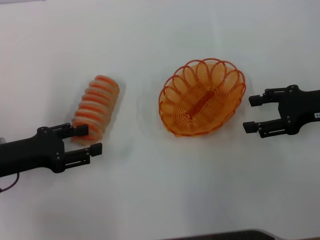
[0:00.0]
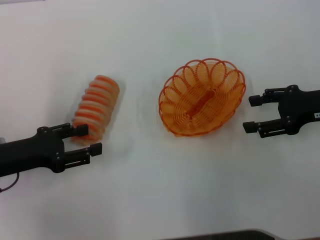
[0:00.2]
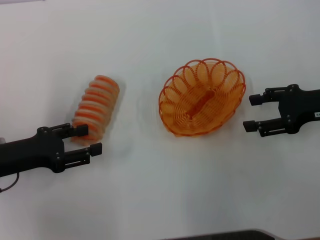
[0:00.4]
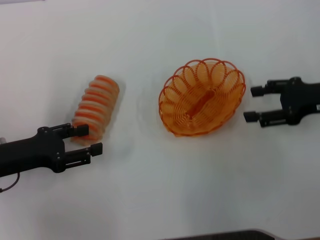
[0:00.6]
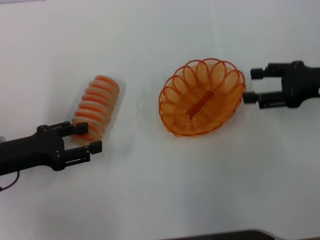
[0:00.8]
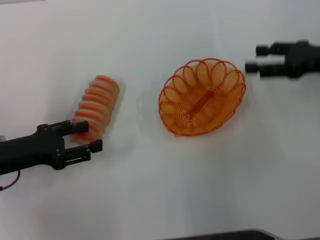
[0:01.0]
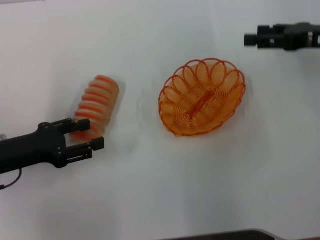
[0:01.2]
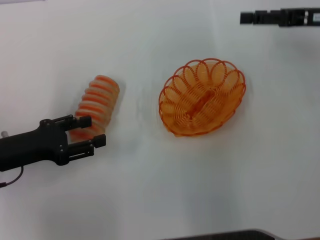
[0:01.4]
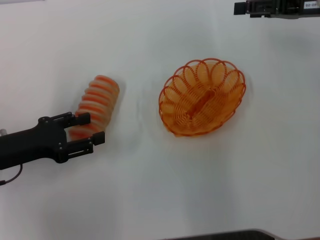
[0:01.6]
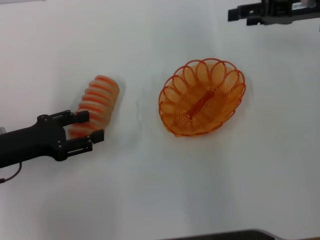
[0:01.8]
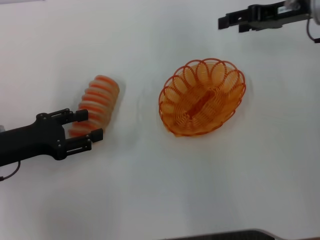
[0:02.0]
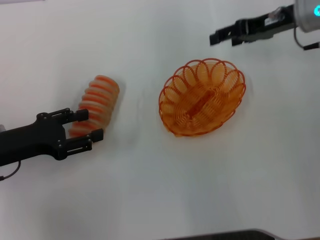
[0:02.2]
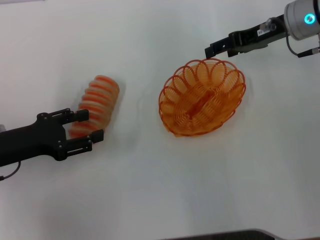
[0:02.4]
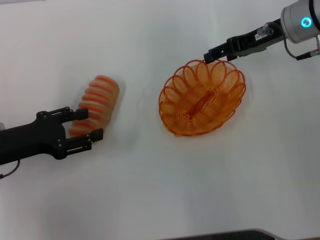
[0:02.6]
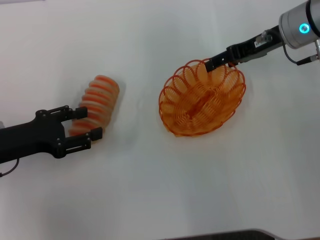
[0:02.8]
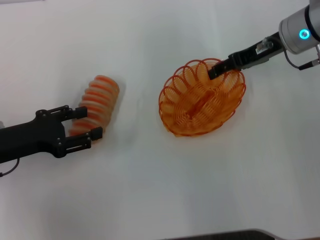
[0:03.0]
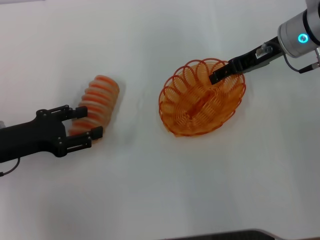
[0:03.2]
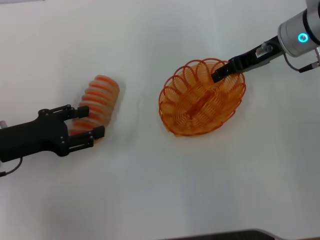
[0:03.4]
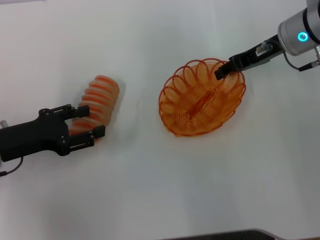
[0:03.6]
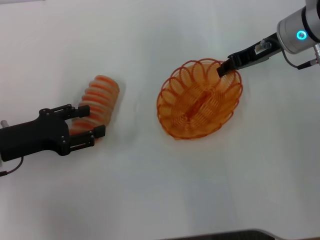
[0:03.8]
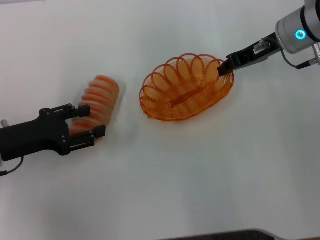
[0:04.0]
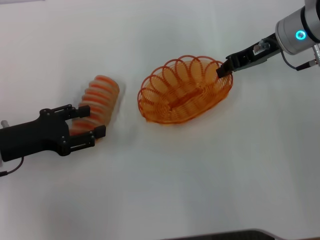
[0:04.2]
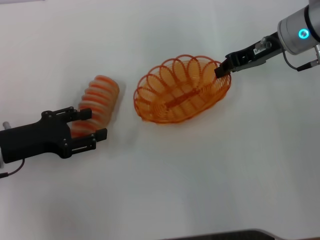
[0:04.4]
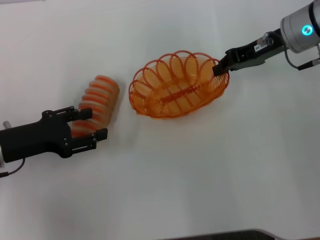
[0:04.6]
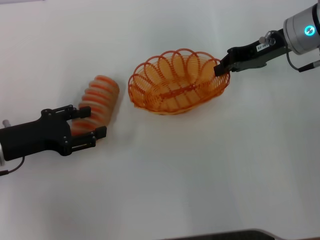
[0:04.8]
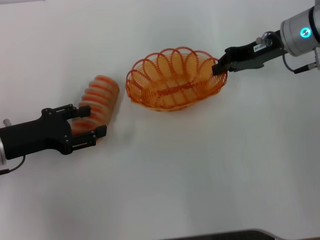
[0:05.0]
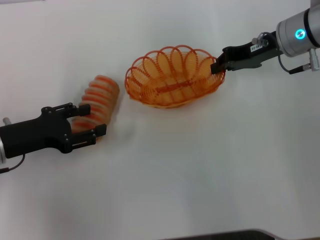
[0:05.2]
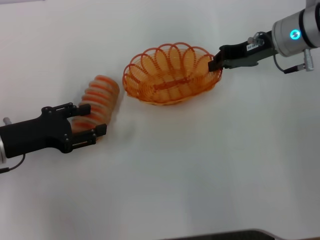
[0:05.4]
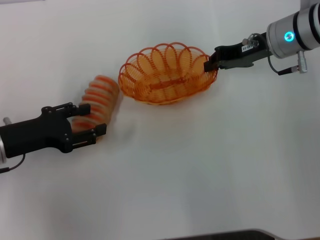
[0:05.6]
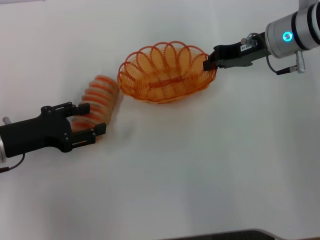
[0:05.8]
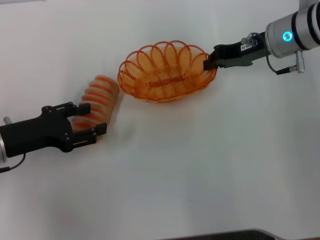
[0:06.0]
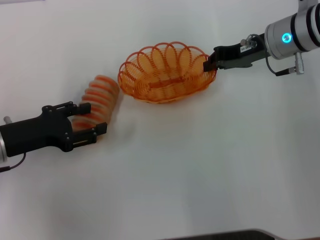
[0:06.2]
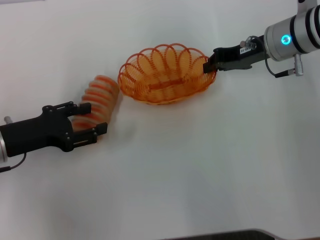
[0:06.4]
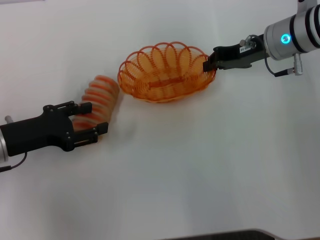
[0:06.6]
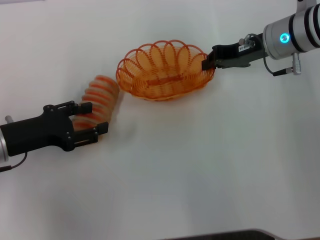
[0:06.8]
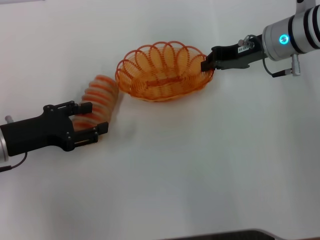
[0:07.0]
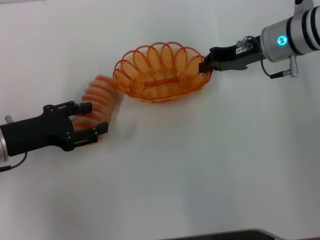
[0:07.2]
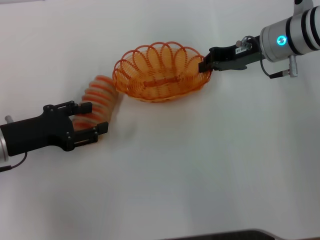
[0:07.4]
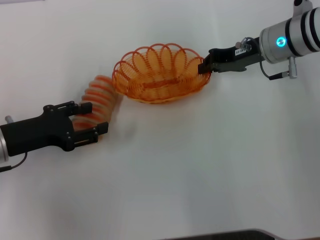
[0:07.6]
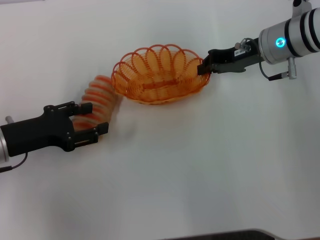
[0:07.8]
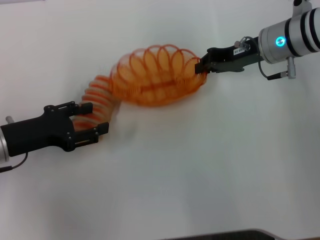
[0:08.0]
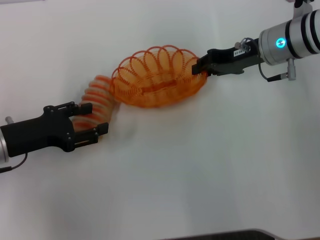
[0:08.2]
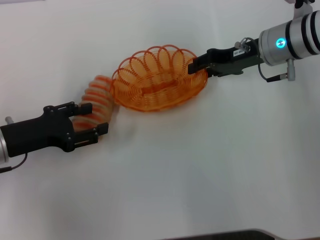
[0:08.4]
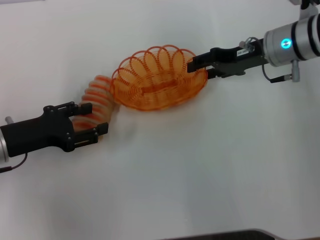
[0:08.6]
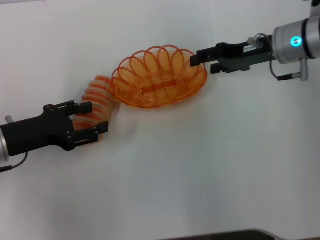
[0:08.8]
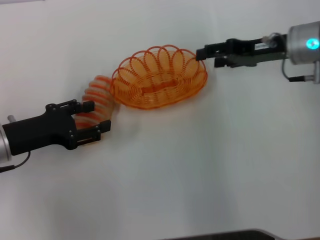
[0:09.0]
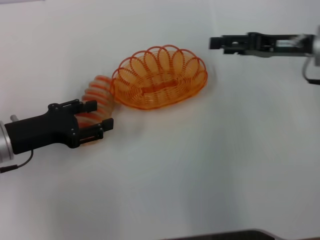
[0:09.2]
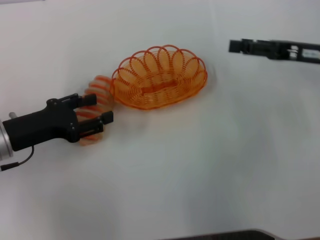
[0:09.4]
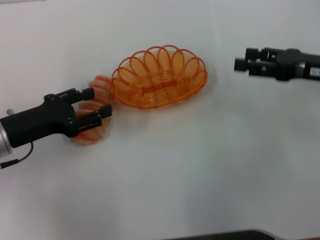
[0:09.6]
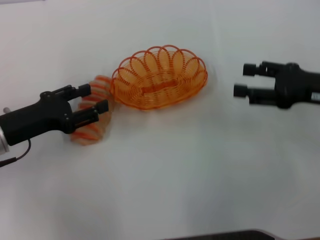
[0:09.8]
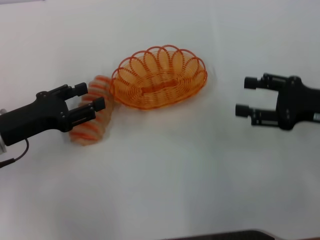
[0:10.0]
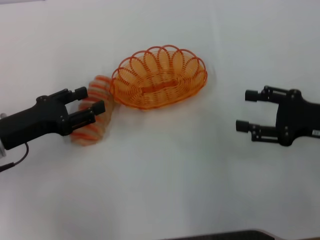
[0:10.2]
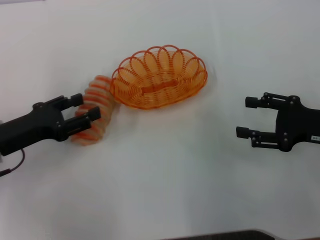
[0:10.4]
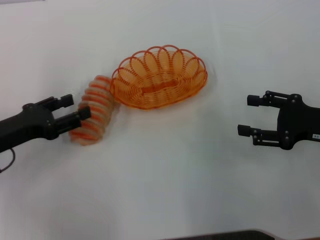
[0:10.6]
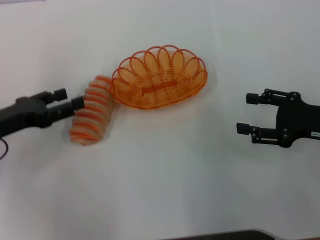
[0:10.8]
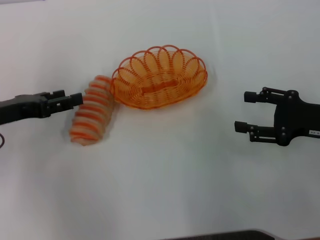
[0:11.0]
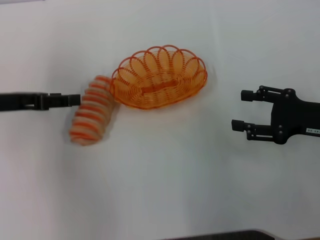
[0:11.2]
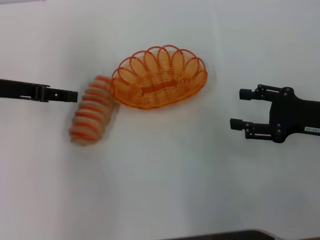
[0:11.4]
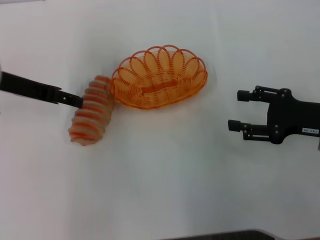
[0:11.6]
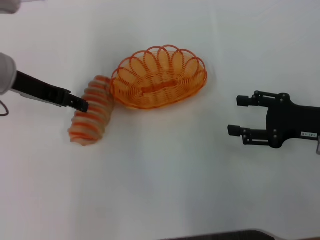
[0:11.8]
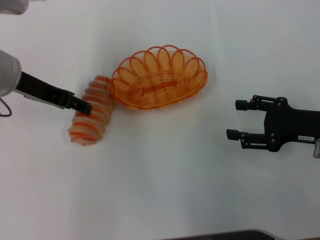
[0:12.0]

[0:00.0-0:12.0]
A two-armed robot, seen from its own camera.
Step, 0.0 to 4.6 s: Pick up the basket with the right gripper.
Step, 4.8 to 9.4 s: Place the basket in the center of view with the right gripper.
0.0 to 1.6 s: The right gripper goes about 10 cm forward and upward.
1.6 to 3.0 s: The right gripper is displaced to the left by roughly 5 cm.
3.0 to 4.4 s: The right gripper closes its fingers.
4.4 to 6.0 s: The grippers make only small movements.
6.0 to 7.6 s: Neither gripper changes place.
7.6 to 9.0 s: The right gripper opens its fingers.
9.0 to 10.4 s: The right gripper travels backward and to the right by approximately 15 cm.
10.4 to 12.0 s: The left gripper shifts about 15 cm upward, forward and to the right.

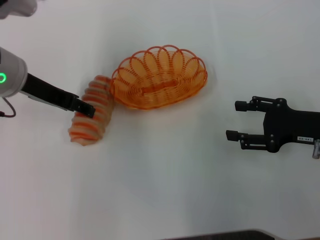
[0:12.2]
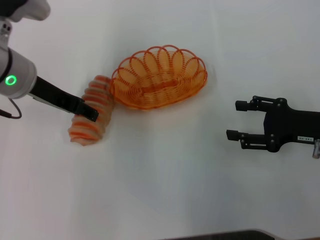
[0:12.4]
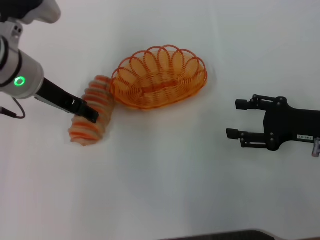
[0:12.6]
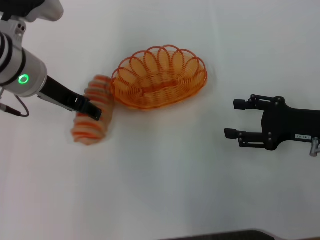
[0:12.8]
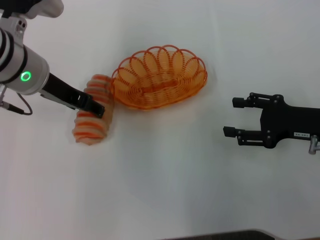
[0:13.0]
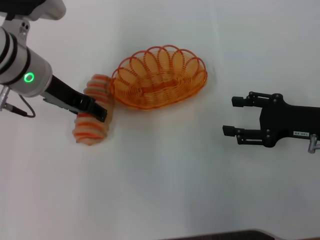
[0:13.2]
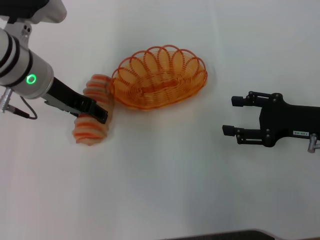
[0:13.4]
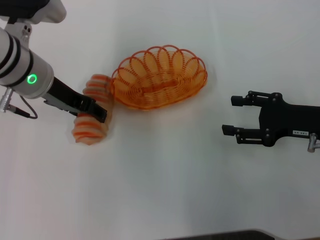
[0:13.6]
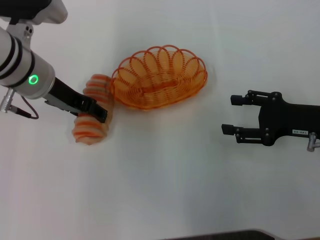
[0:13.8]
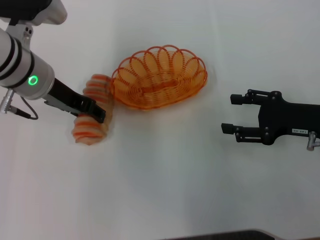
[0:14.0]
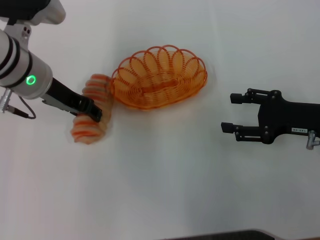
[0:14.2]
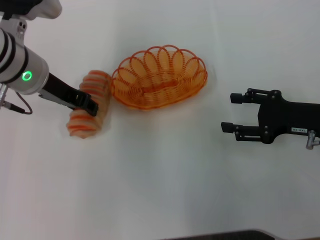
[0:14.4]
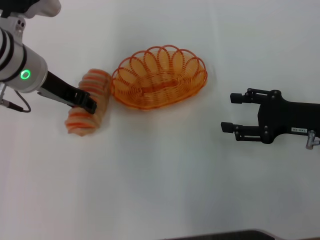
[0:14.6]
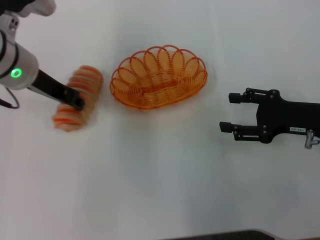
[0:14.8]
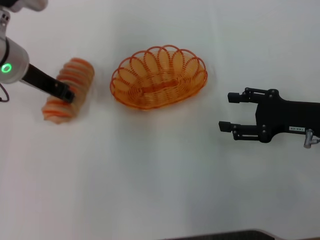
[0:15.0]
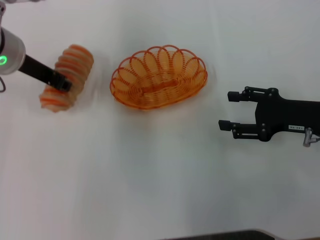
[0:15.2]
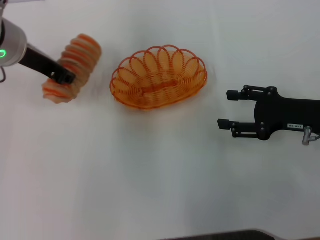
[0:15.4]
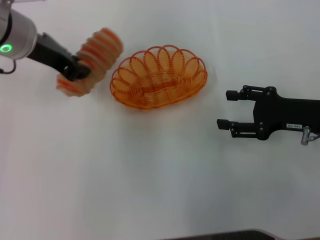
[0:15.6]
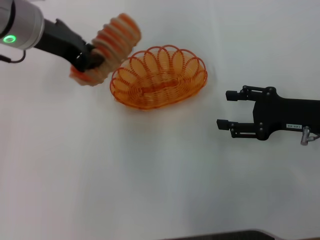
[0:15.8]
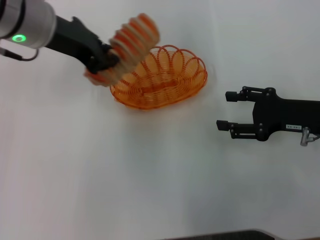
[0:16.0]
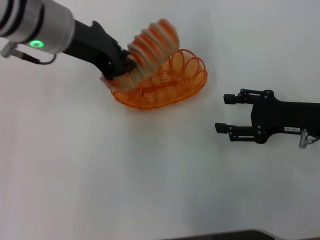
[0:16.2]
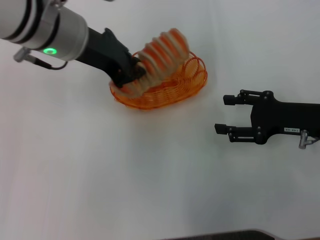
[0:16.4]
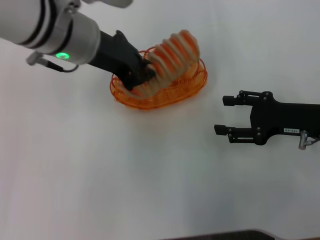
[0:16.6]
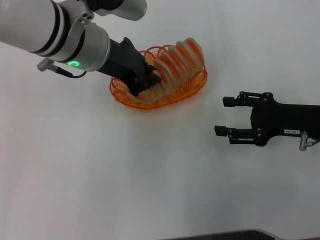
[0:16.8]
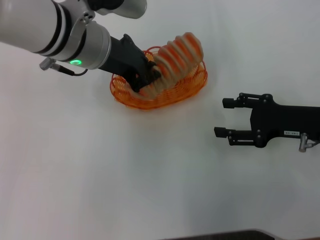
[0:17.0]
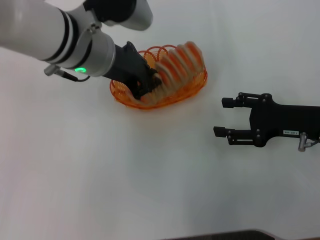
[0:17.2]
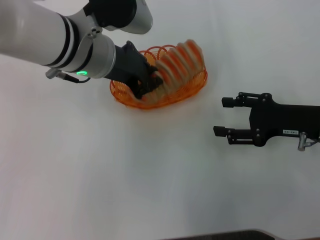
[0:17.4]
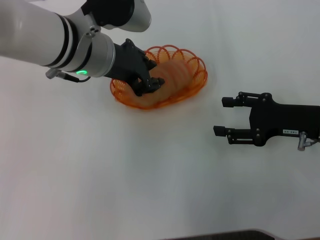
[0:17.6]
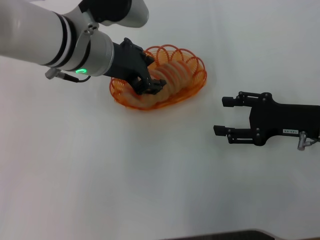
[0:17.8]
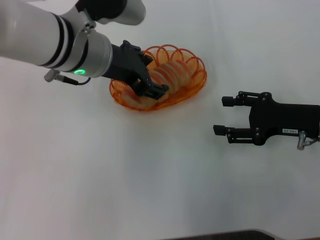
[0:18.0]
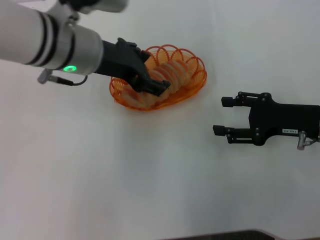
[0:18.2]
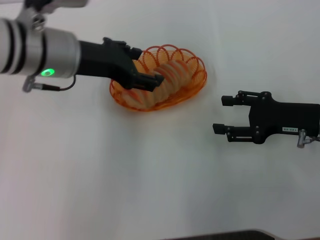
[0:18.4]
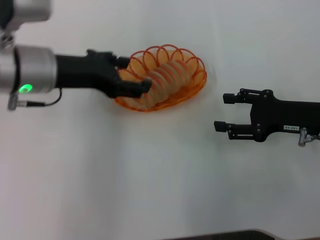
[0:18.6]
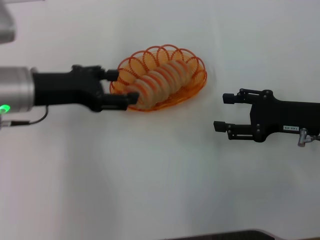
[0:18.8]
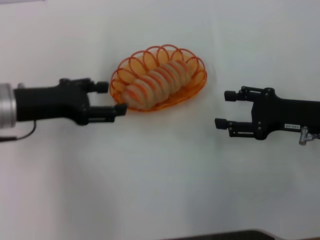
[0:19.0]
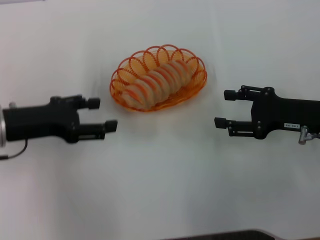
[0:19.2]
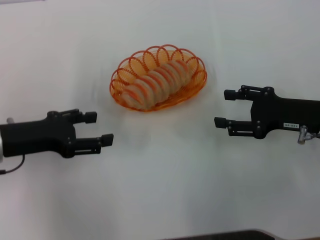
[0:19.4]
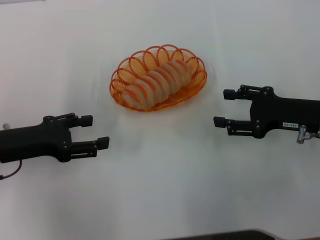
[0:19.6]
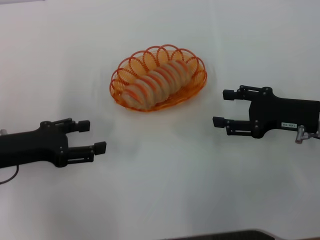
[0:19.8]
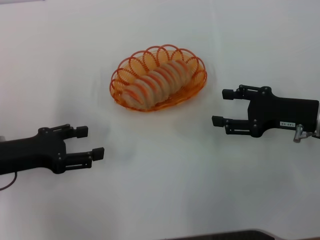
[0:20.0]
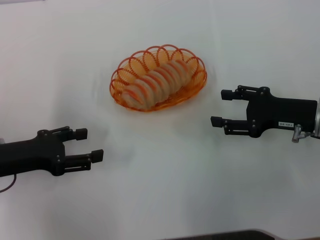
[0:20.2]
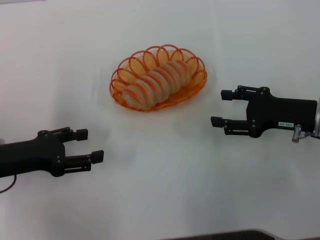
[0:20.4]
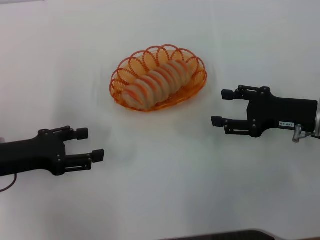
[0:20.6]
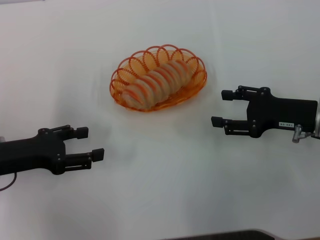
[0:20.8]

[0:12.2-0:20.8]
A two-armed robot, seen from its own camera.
Step, 12.2 to 15.0 s: Pick up the long bread with the left gripper.
Step, 15.4 to 18.8 s: Place the long bread into the basket with the left gripper.
12.2 to 13.6 s: There are only small adjustments of the grippers.
13.6 to 15.0 s: The left gripper closes up.
15.0 to 16.6 s: The left gripper moves to the right, about 10 cm, and closes up.
16.6 to 18.0 s: The left gripper opens its fingers.
18.0 to 19.4 s: The left gripper is displaced to the left, downward and backward by about 20 cm.
19.4 to 20.8 s: The grippers stay close to where they were, moving slightly.

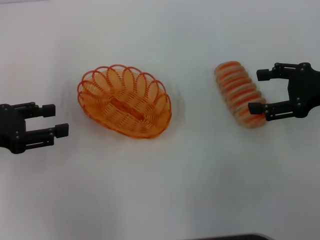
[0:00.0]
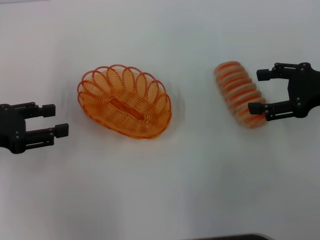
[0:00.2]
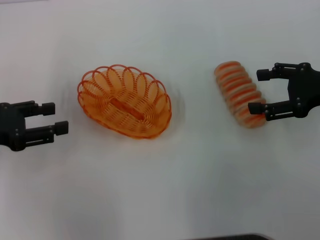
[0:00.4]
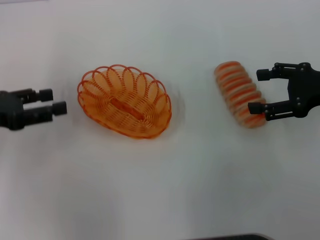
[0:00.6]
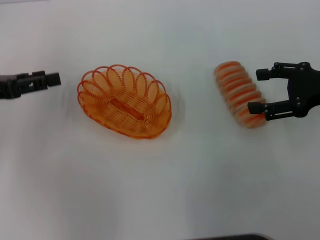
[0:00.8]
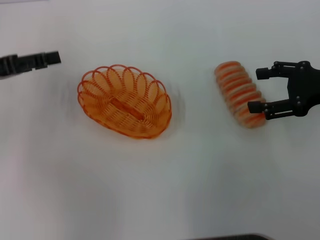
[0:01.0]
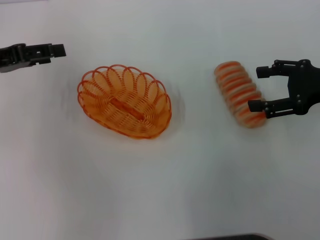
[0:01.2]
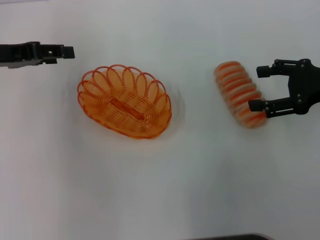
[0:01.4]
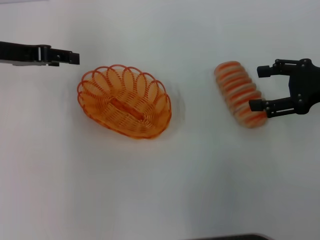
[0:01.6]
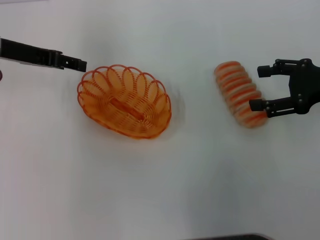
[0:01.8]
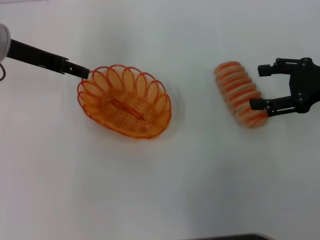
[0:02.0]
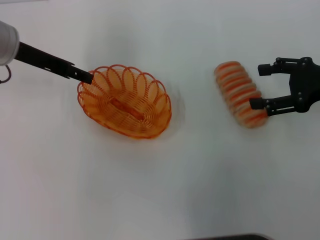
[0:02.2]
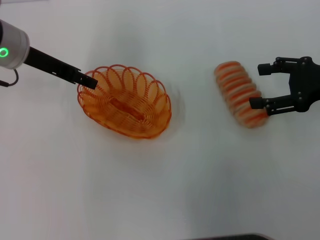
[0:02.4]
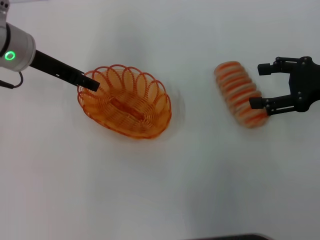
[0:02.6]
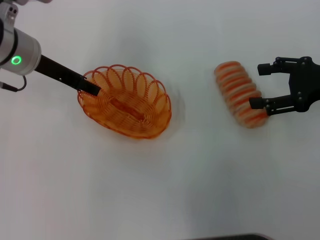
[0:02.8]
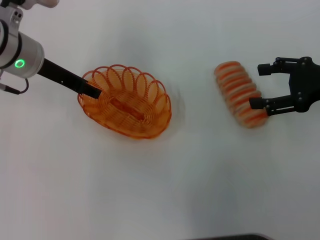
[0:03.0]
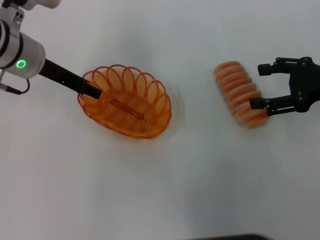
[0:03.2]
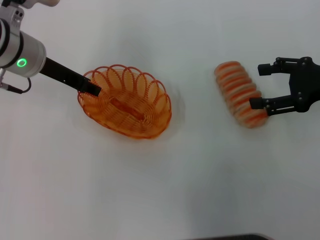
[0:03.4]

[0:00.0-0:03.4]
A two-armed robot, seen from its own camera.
0.0 to 1.6 s: The left gripper is displaced forward by roughly 10 cm.
1.6 to 3.4 s: The left gripper shifts some 10 cm to the right.
